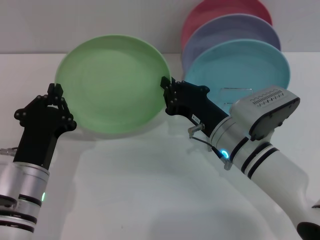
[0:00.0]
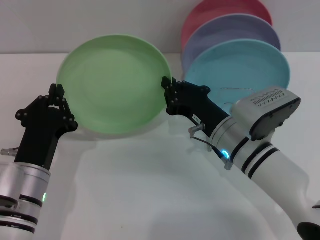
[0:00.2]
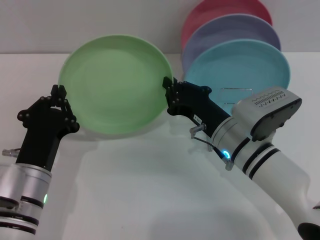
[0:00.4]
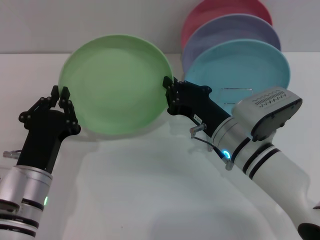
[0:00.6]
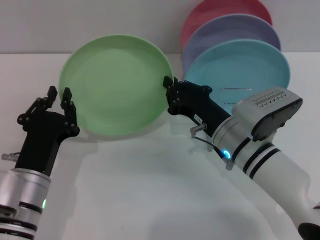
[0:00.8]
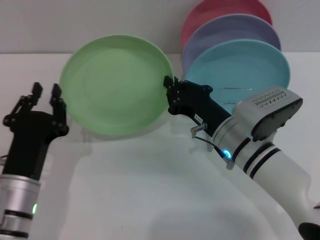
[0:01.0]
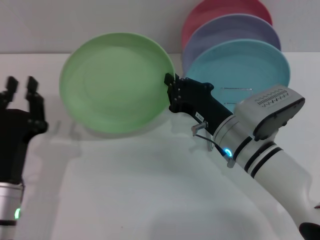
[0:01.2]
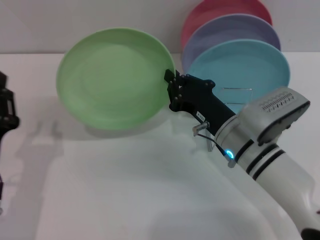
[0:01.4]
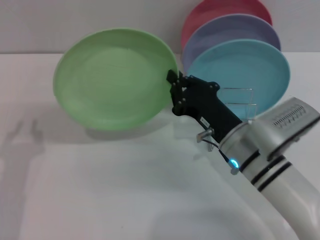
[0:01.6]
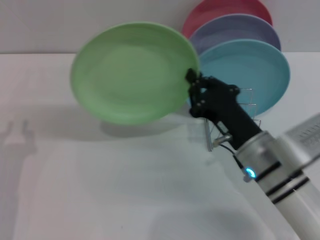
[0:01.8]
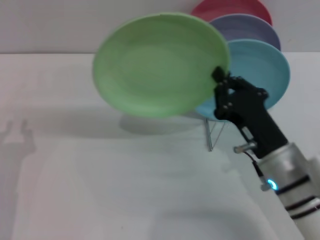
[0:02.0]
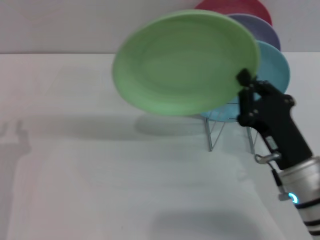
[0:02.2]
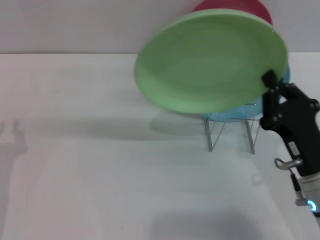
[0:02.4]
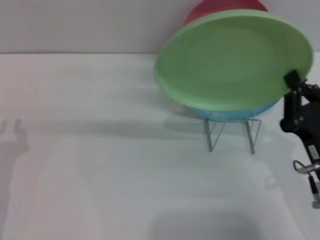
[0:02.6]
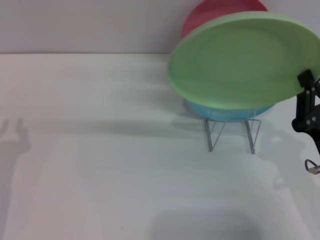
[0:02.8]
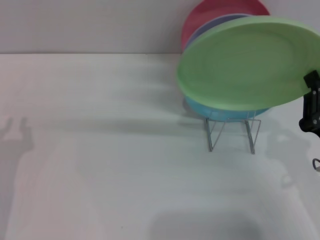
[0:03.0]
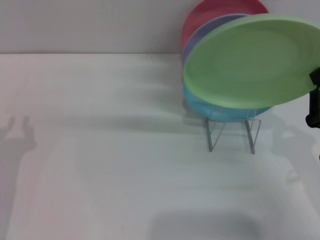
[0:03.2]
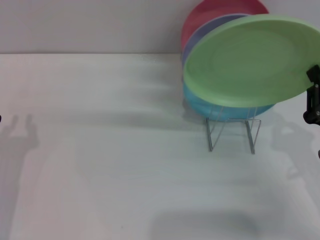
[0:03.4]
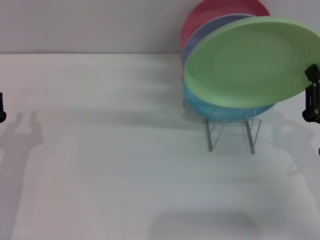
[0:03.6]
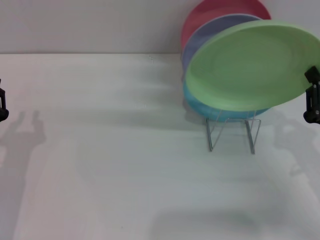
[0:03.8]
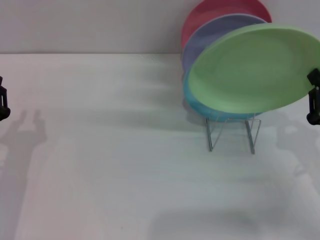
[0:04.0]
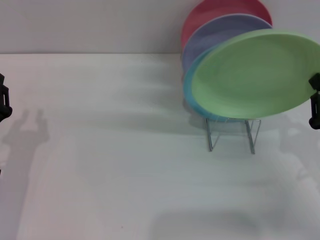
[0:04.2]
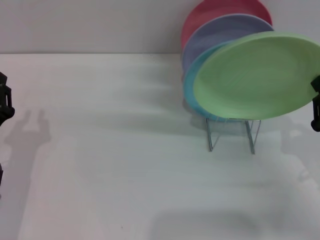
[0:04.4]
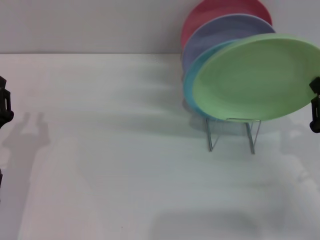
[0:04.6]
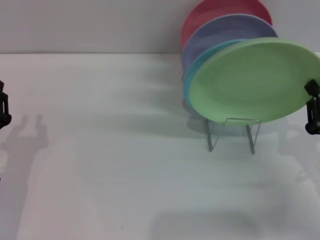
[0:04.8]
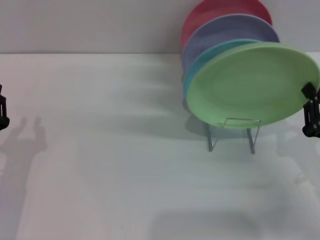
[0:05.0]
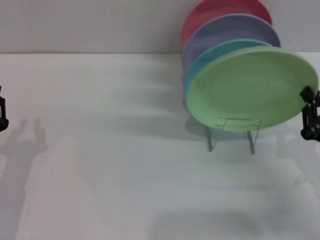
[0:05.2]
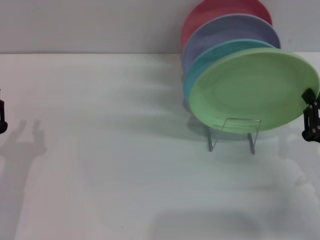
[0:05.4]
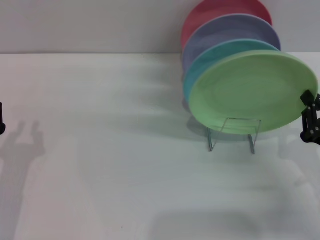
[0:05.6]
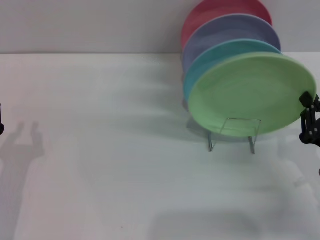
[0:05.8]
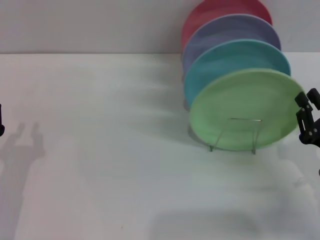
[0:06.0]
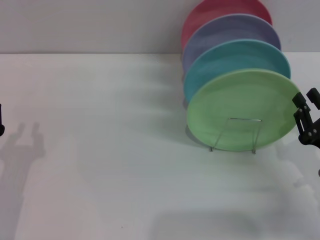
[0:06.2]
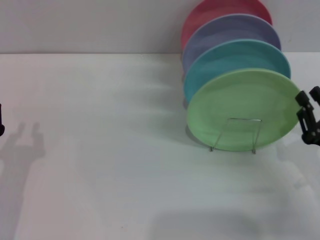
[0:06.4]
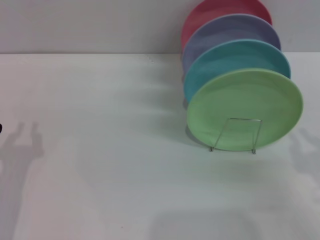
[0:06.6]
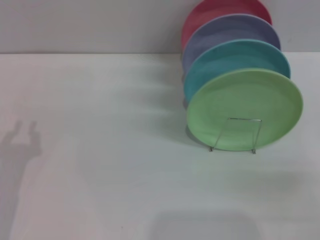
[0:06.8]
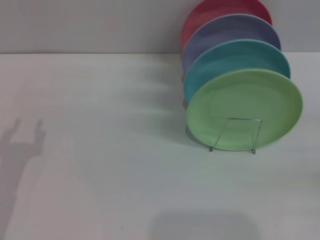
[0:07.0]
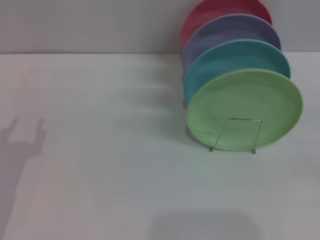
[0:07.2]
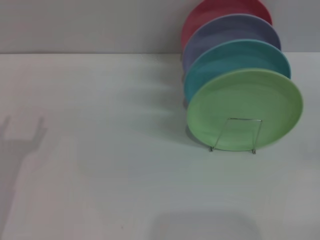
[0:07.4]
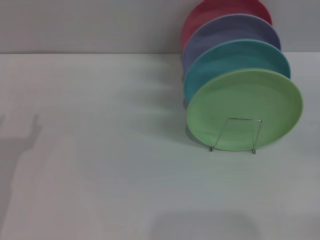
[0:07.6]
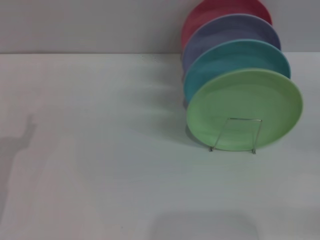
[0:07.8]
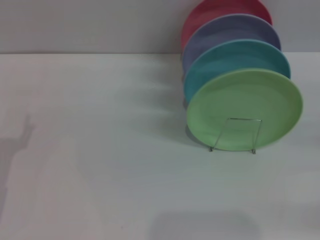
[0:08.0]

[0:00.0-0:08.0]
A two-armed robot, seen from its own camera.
Task of the whole recording: Grip the plate with one hand, pass it to the other, then set it on the shelf.
Step, 0:01.2 to 0:06.2: Place the plate on the shelf with the right gripper.
0:00.0 to 0:01.6: The left gripper is displaced to the left by roughly 5 cm.
0:01.6 to 0:03.2: The right gripper travels to the right and backward by roughly 15 cm.
0:03.2 to 0:04.8: There are only small adjustments of the grippers.
0:04.8 to 0:06.4: The right gripper opens up.
0:06.4 to 0:08.0: The right gripper moves to the right, about 15 cm, and opens.

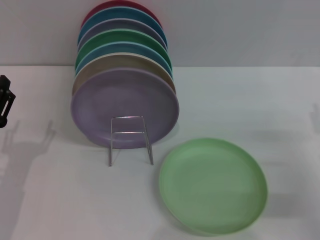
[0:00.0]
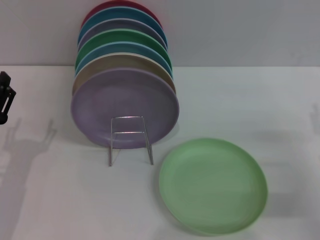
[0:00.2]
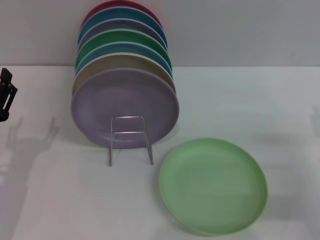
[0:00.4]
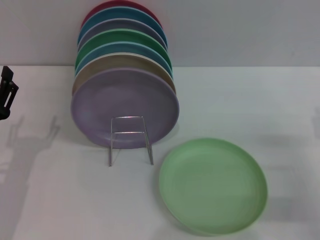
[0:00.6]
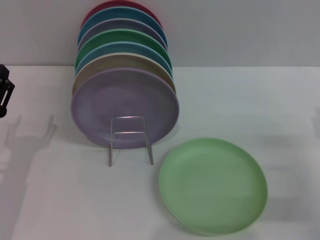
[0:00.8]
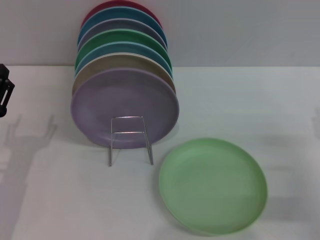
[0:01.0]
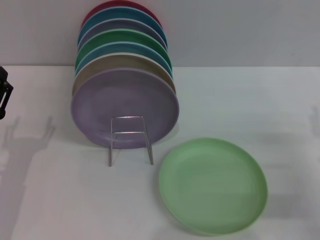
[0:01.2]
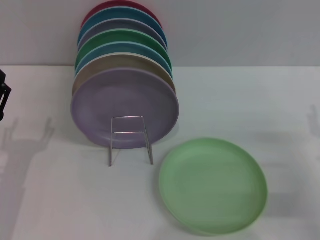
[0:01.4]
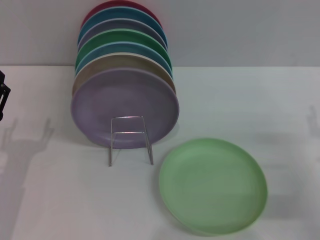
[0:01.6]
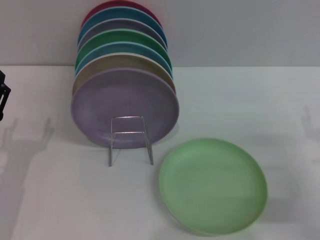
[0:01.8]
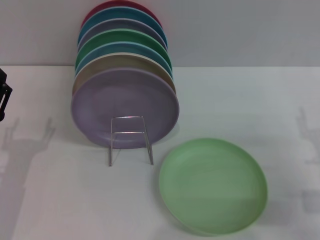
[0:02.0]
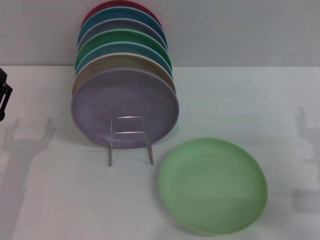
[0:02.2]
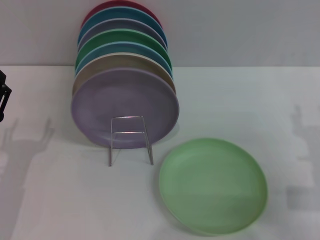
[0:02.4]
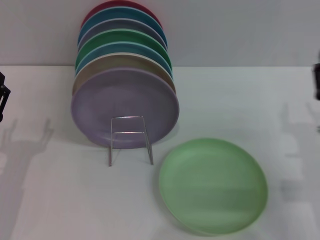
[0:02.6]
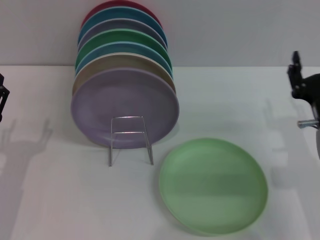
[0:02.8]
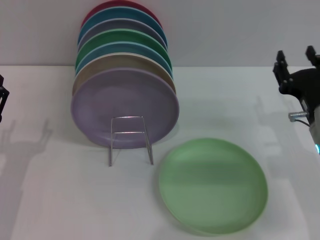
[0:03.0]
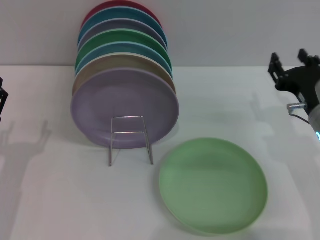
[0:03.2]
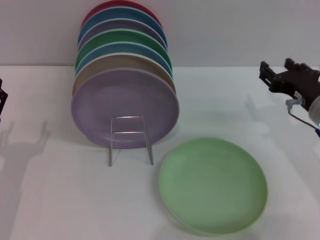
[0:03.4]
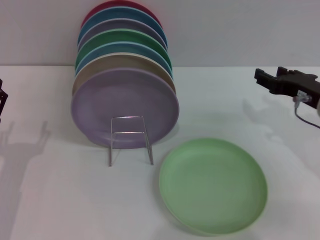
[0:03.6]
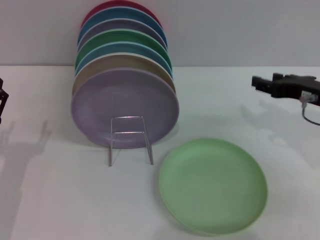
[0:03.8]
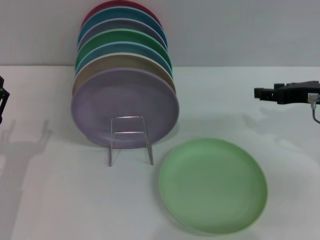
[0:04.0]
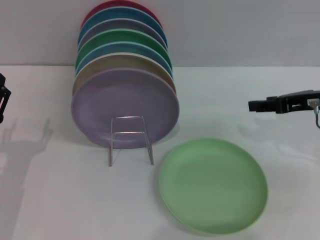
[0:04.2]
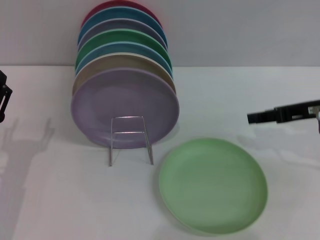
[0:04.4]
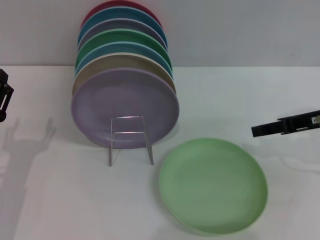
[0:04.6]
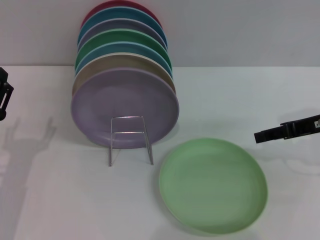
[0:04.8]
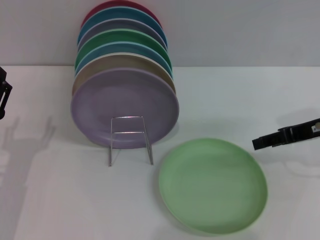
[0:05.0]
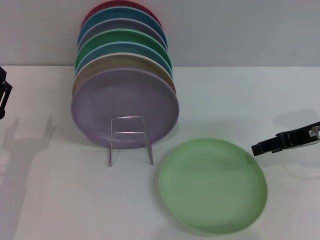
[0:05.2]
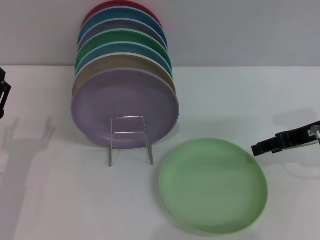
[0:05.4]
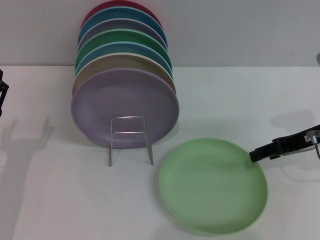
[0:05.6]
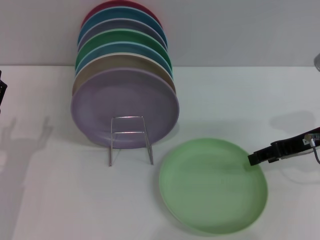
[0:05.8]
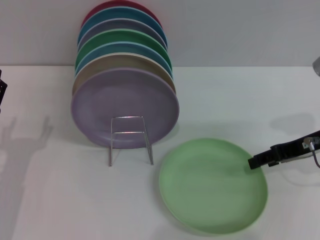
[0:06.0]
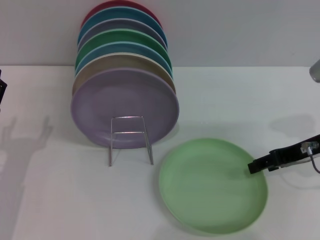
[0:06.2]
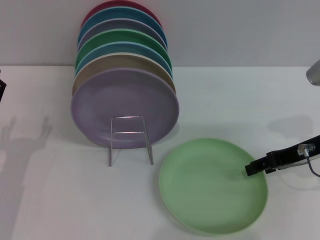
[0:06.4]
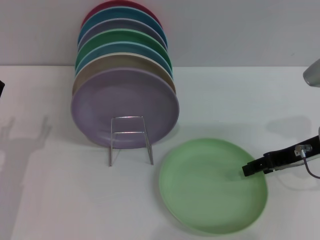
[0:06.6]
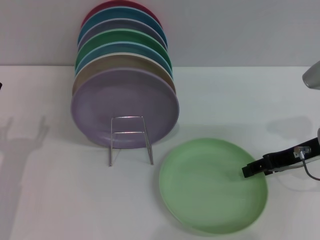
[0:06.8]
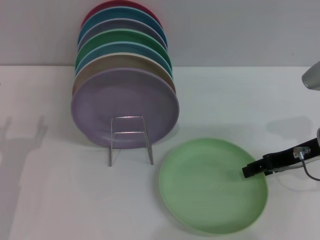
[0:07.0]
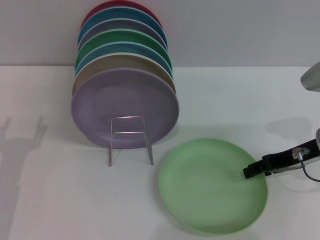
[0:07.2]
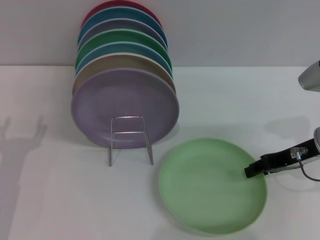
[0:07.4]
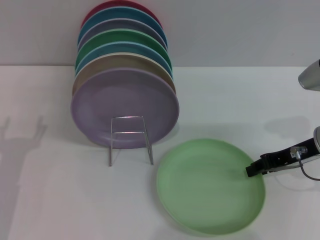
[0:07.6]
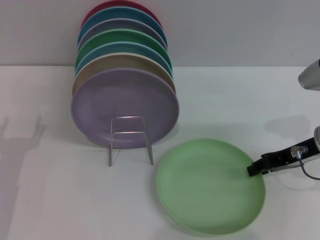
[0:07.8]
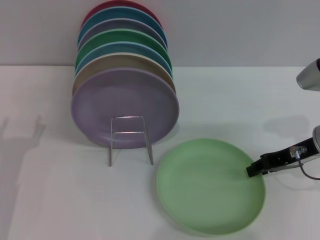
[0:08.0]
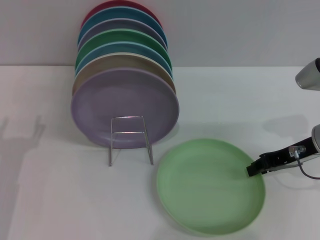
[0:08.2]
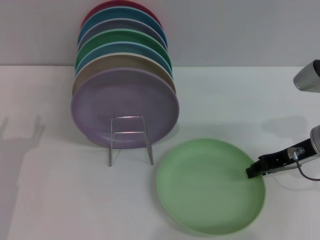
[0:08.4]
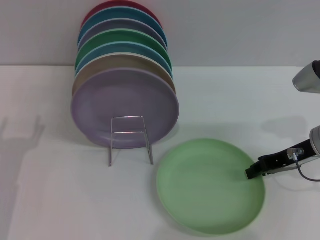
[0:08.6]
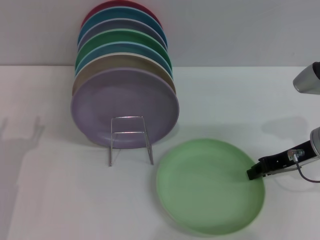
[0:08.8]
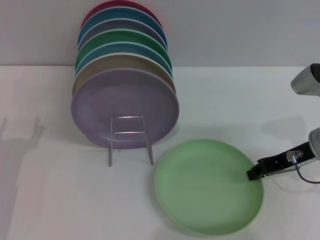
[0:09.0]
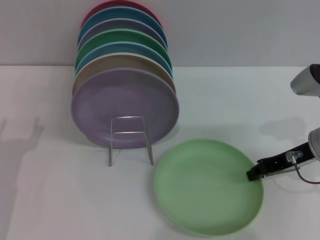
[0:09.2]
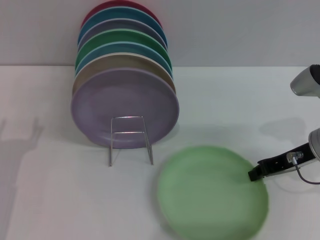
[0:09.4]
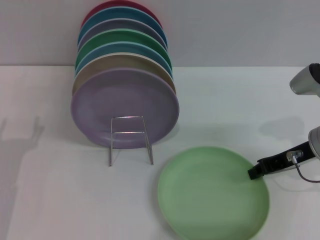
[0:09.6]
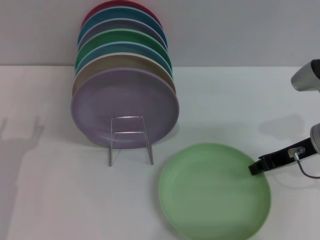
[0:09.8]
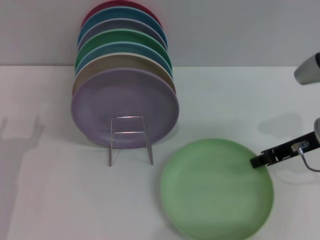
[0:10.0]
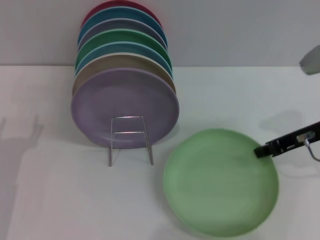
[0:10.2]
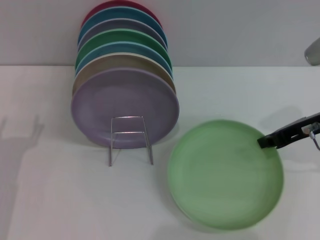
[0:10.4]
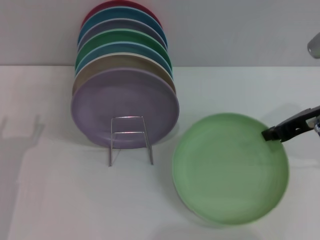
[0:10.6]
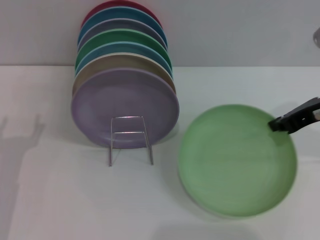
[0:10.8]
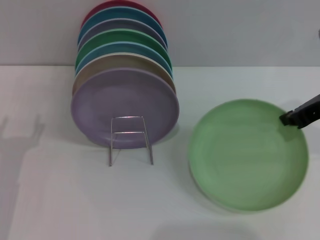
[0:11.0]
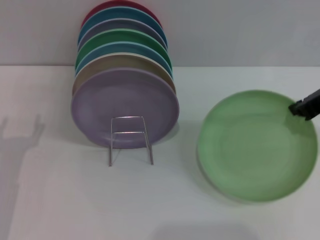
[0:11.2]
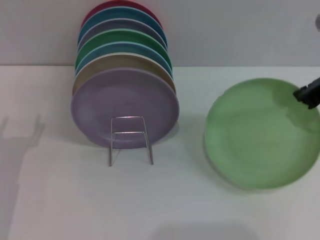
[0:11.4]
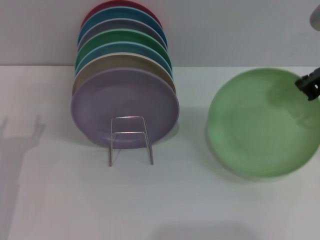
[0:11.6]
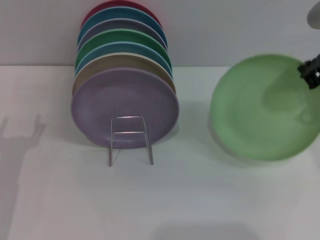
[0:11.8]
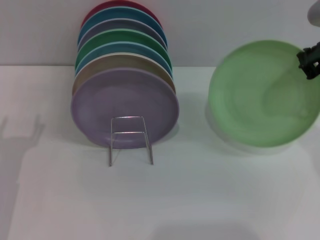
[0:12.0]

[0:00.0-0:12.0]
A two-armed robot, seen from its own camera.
Task of the whole recording: Grip the plate with one hand, pass it to the other, then set it on the shelf.
Step, 0:00.0 to 0:12.0: Pick up the plate with the right gripper.
0:00.0 to 0:01.6: Neither gripper changes place.
0:01.6 to 0:03.0: The right gripper heads to the left, covering roughly 10 cm.
0:03.0 to 0:04.4: The right gripper moves upward, some 10 cm.
0:04.4 to 0:06.0: There are only small adjustments of the grippers.
0:06.0 to 0:07.6: The right gripper closes its fingers.
0:07.6 to 0:09.0: Neither gripper changes place.
0:09.0 to 0:10.4: The right gripper shifts some 5 cm upward.
0:10.4 to 0:12.0: The right gripper shifts approximately 5 cm upward.

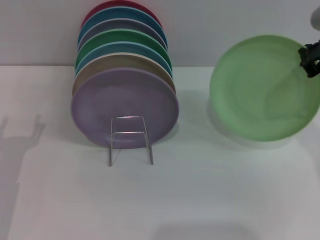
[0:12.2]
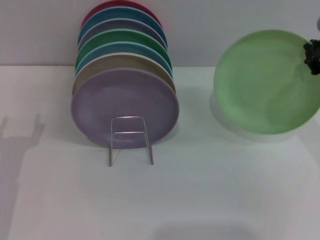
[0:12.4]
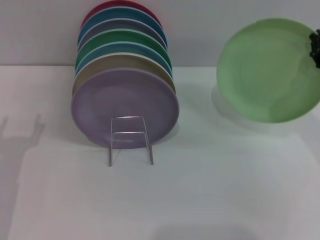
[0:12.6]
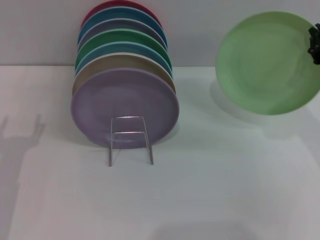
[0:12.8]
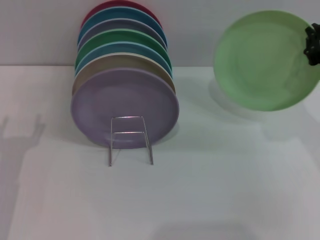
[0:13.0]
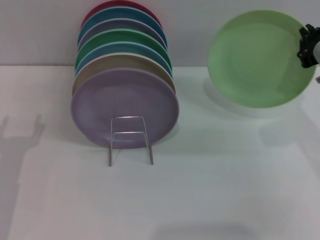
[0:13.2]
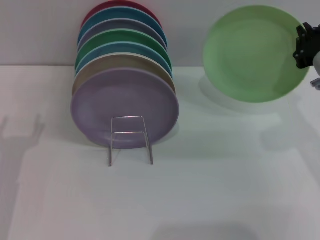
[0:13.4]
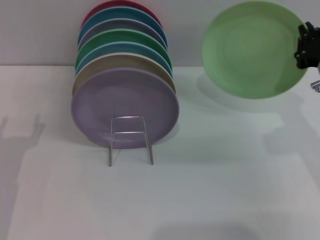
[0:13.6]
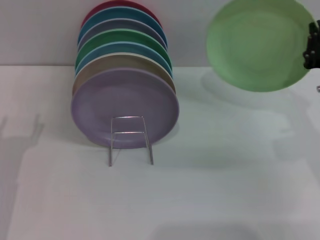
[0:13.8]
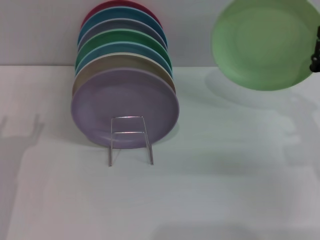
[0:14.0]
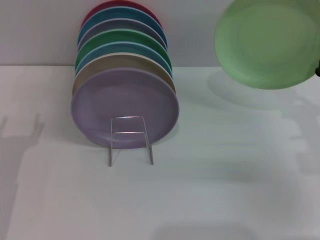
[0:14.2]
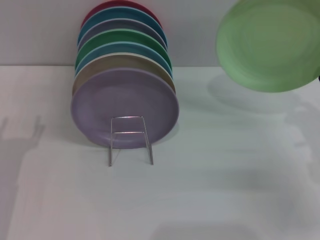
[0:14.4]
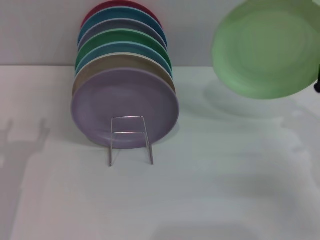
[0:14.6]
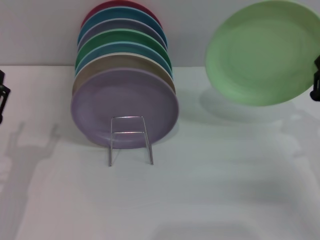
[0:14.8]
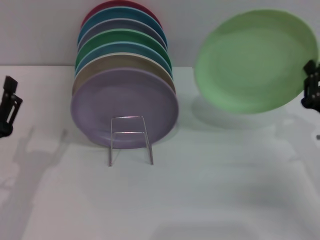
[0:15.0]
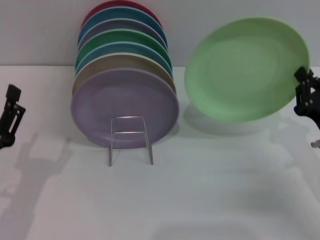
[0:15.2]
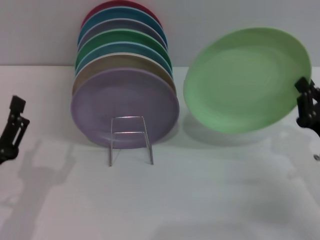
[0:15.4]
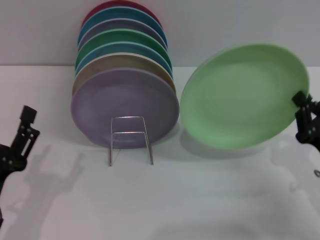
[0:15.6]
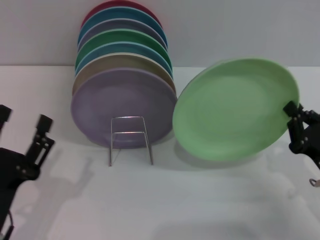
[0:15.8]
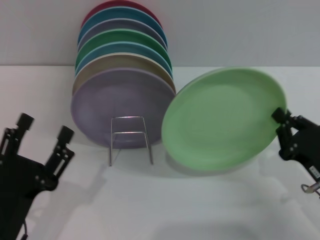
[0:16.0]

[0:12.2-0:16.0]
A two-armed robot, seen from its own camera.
Task of the whole recording: Grip the plate with one hand, pass it to the other, then set it on the shelf.
0:12.2 to 0:13.4: The right gripper moves downward, approximately 5 cm.
0:13.4 to 0:14.8: The right gripper heads downward, covering some 10 cm.
0:14.8 to 0:16.0: The two grippers go roughly 5 cm backward.
